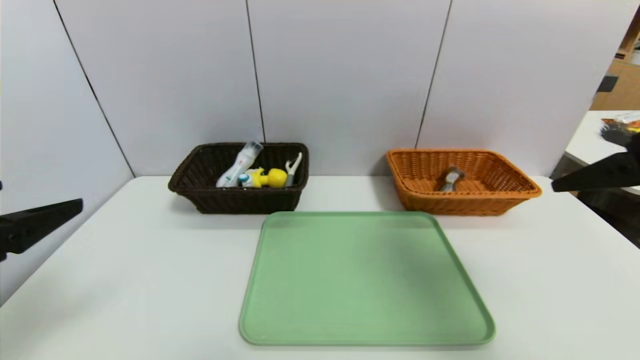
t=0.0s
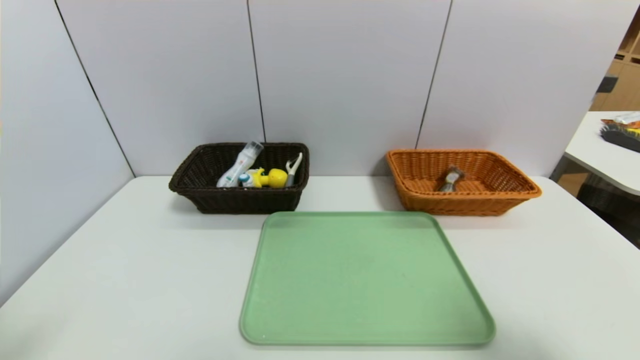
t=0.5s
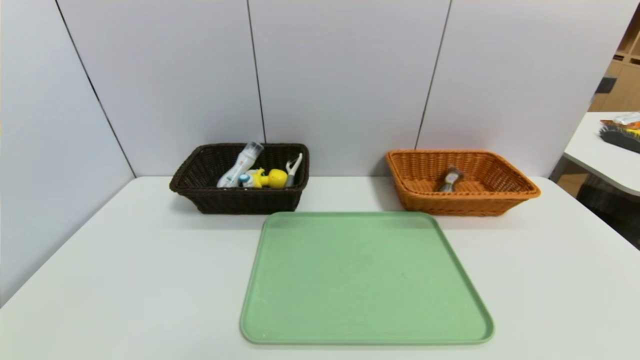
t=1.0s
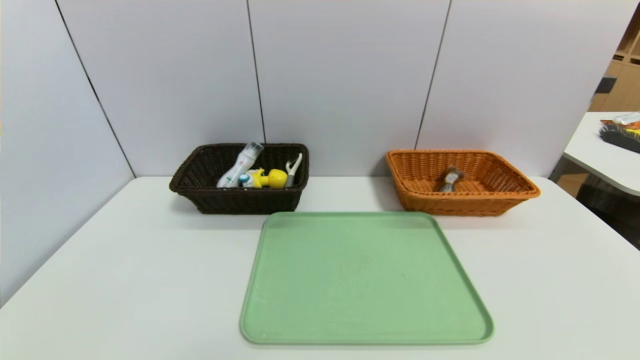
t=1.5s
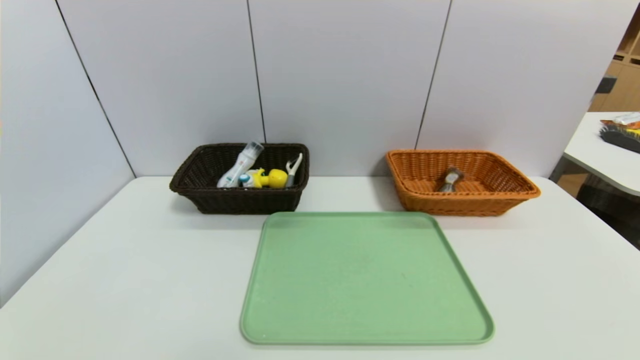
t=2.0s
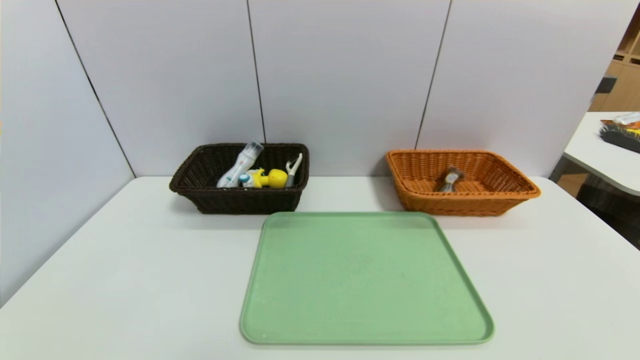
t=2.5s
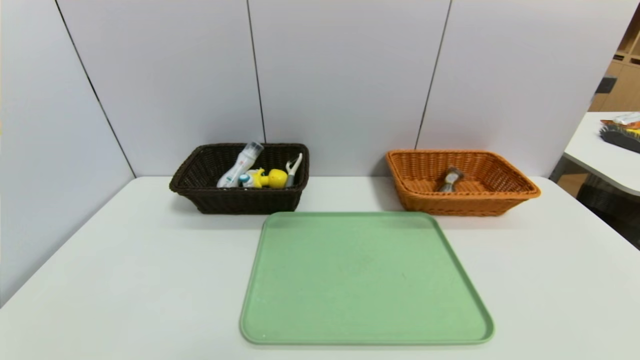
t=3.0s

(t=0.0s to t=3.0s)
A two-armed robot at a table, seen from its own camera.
Task of the whole recording: place the food in the right basket with the right gripper, and place the non food items in the left basket with the left gripper.
t=0.0s - t=1.5s: The left gripper shifts some 20 cm downward and backward. The right gripper is displaced backward and downward by roughly 30 cm.
